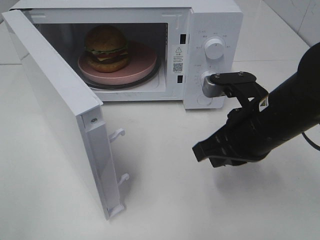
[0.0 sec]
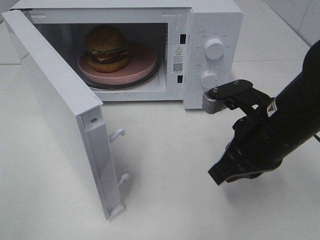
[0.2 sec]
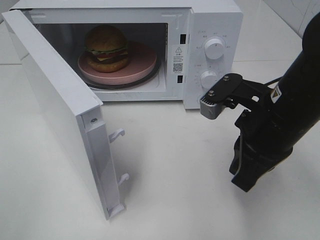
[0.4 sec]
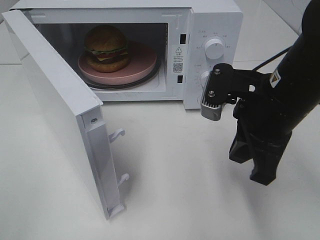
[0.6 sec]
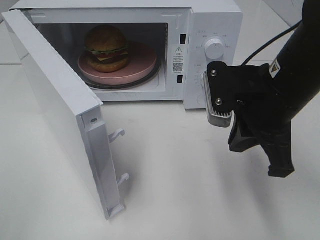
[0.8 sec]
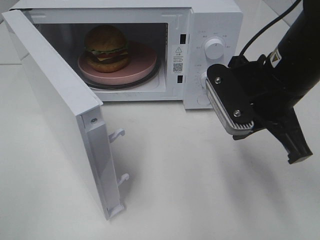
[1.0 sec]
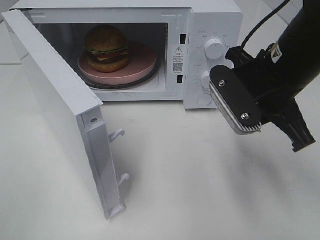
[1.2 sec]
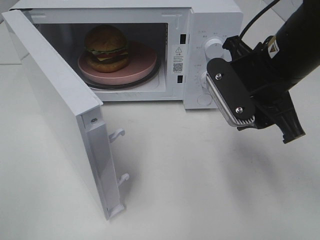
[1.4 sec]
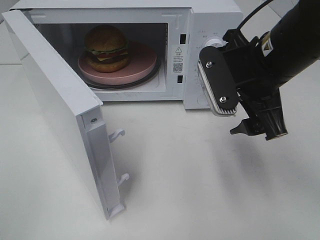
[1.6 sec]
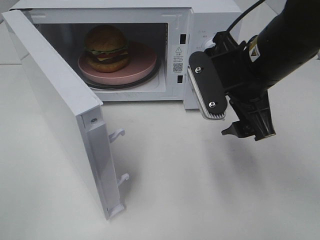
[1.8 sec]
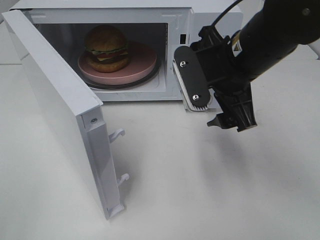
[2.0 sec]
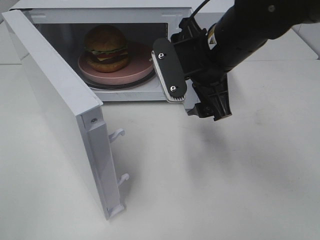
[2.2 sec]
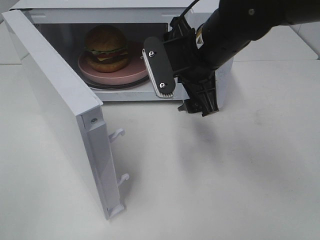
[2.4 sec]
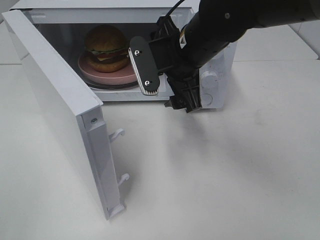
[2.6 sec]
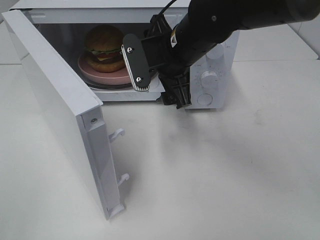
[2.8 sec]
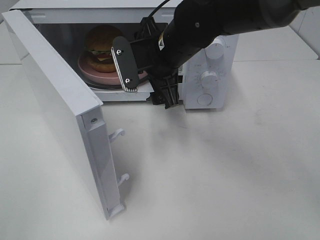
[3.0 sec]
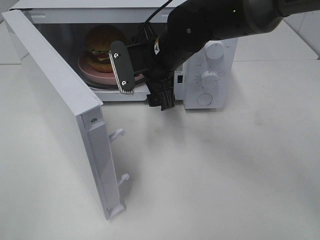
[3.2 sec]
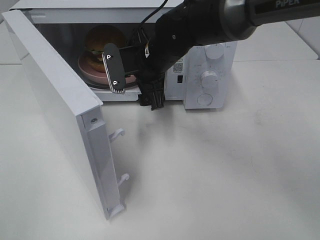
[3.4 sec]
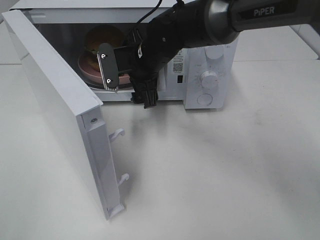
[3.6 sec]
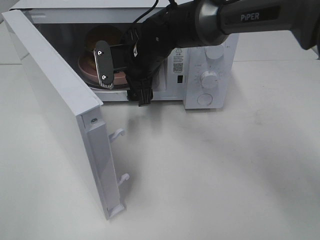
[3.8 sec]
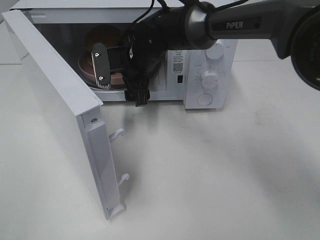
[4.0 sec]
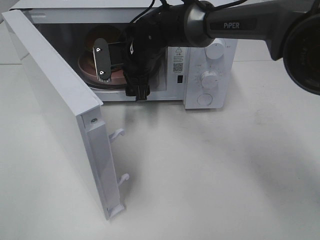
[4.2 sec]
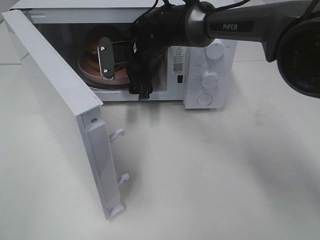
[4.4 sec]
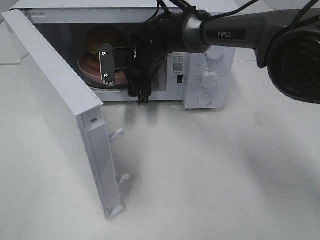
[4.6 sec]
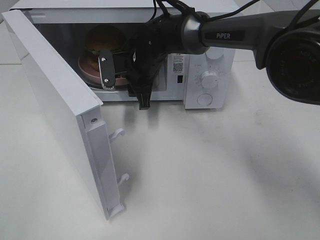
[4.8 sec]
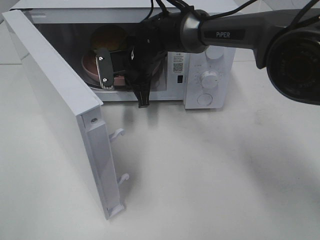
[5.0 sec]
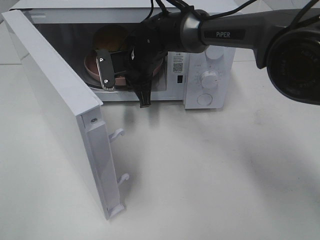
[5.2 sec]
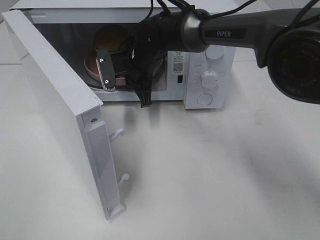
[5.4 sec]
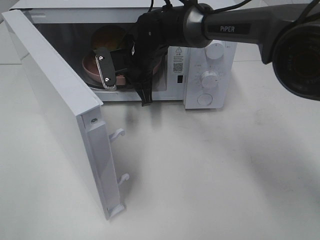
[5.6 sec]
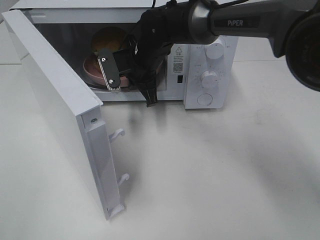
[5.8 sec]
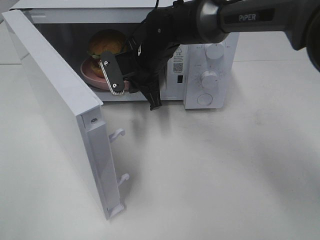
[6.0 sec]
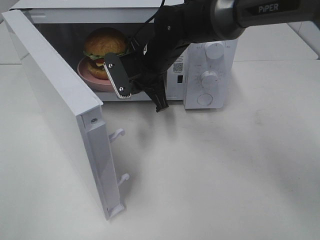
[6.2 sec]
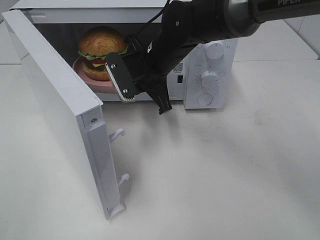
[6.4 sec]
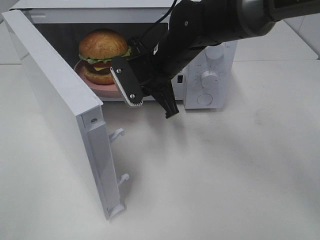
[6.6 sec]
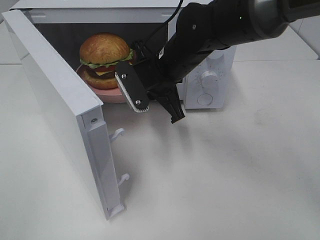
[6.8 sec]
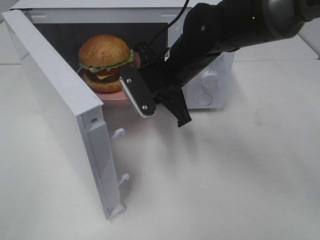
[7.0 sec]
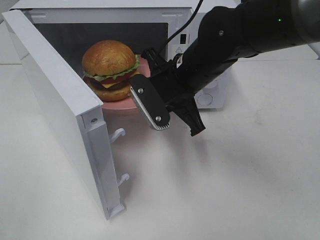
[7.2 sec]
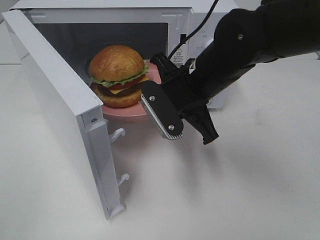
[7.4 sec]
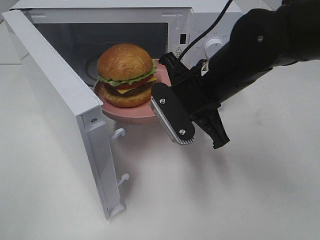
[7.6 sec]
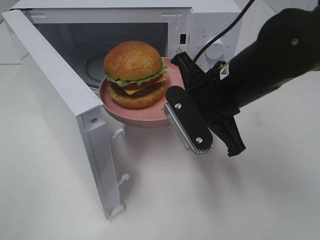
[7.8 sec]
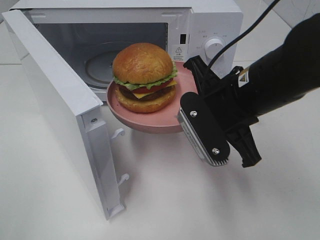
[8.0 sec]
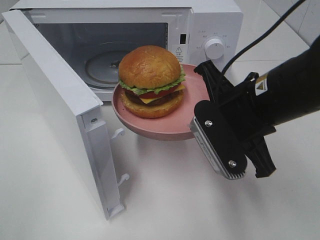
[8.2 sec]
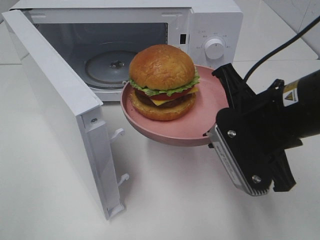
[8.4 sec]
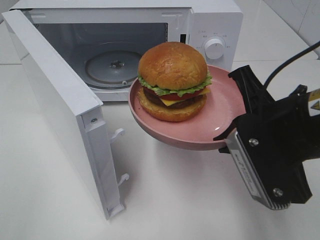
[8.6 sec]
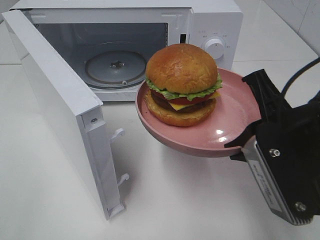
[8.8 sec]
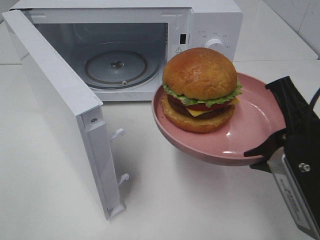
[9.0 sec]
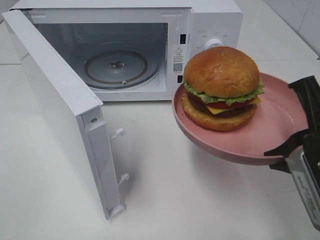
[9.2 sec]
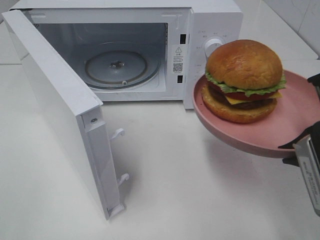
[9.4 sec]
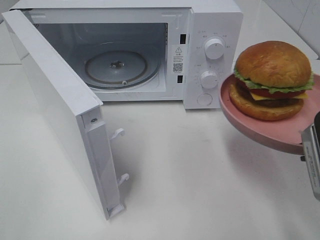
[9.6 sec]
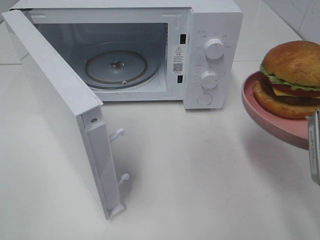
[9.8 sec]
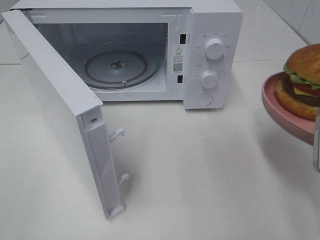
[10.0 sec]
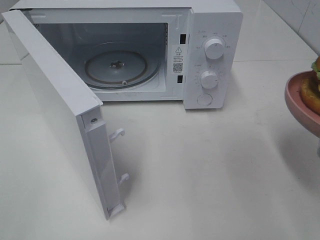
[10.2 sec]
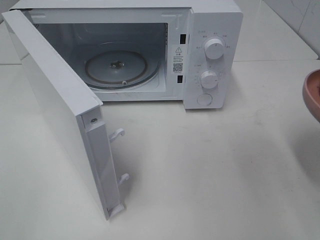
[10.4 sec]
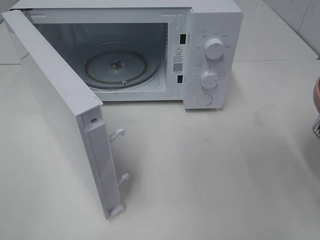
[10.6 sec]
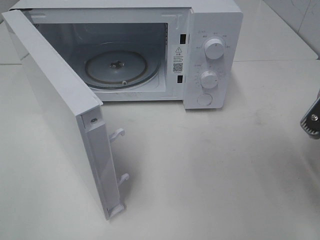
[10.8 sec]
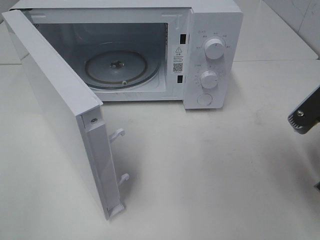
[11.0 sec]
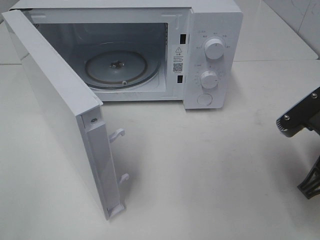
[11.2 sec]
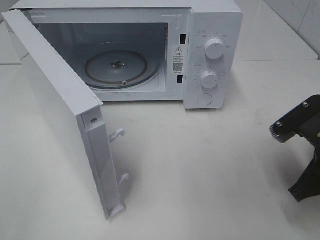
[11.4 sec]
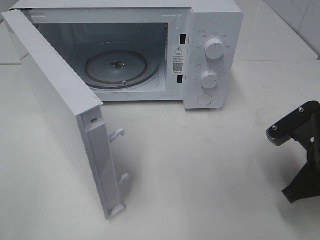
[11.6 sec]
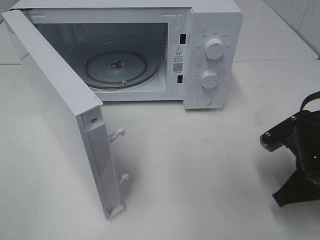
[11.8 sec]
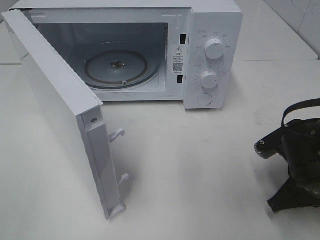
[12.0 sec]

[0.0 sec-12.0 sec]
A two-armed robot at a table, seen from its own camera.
Task of the whole recording: Heat the burger.
Step, 0.0 sec to 5.0 sec: Right hand: grab the plate with the hamburger.
0.0 sec to 1.6 sec: The right gripper shifts approximately 5 cm upward, and opens up.
1.6 sec to 3.0 sec: The right gripper shifts some 15 cm to the left and forward.
3.0 sec to 4.4 sec: The right gripper moves forward and downward, approximately 10 cm.
4.4 sec to 6.0 sec: The right gripper closes its fingers.
6.0 sec to 7.6 sec: The right gripper moves backward and to the right, some 15 cm.
7.6 sec to 9.0 sec: The right gripper moves backward and to the right, some 15 cm.
9.0 sec to 10.4 sec: The right gripper shifts roughly 5 cm to the right.
10.4 sec to 12.0 sec: The right gripper goes roughly 15 cm downward and forward.

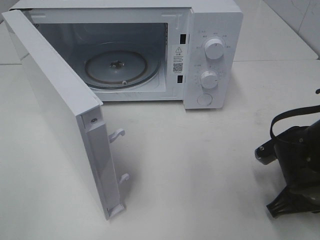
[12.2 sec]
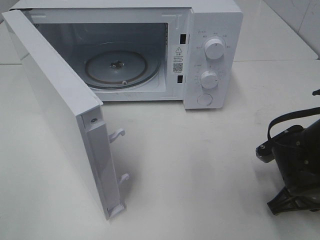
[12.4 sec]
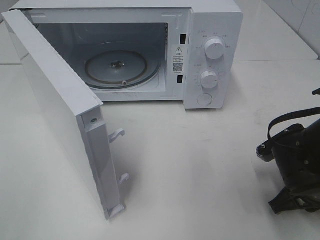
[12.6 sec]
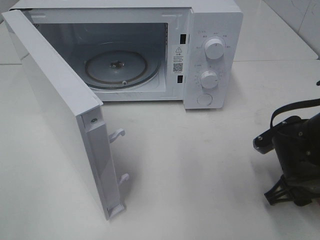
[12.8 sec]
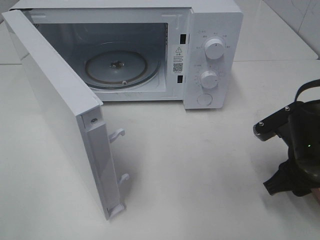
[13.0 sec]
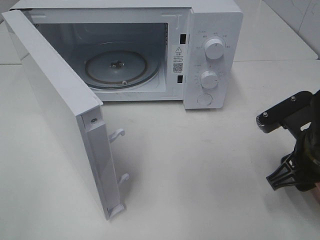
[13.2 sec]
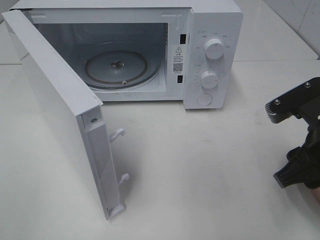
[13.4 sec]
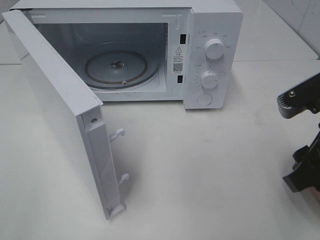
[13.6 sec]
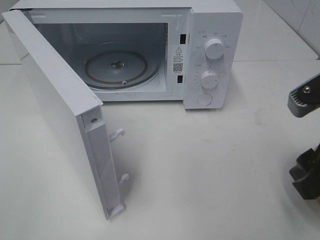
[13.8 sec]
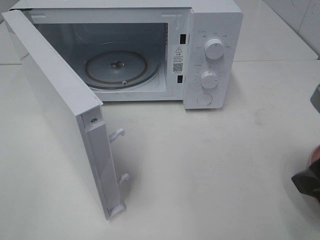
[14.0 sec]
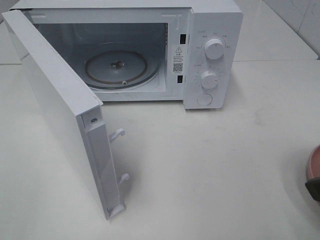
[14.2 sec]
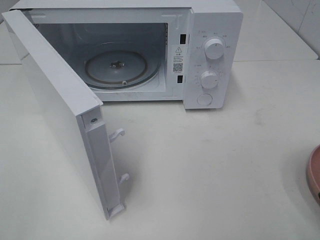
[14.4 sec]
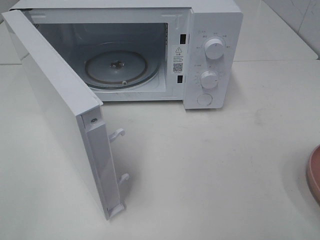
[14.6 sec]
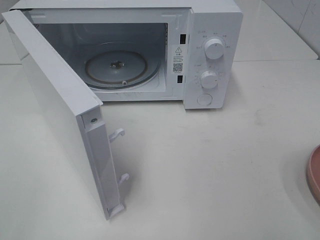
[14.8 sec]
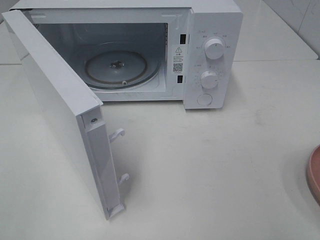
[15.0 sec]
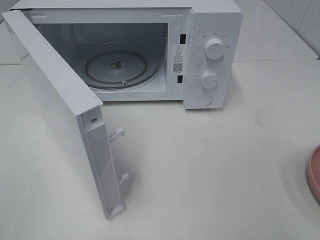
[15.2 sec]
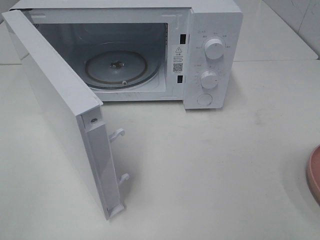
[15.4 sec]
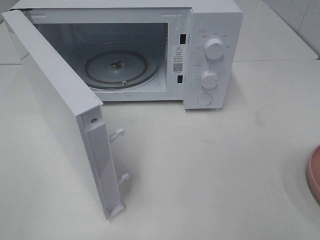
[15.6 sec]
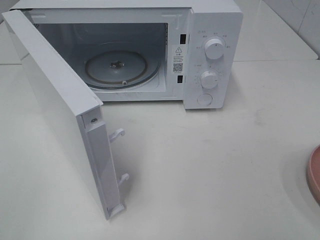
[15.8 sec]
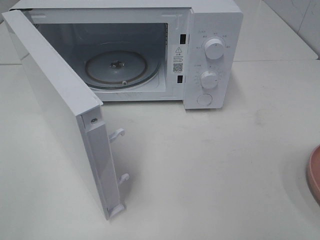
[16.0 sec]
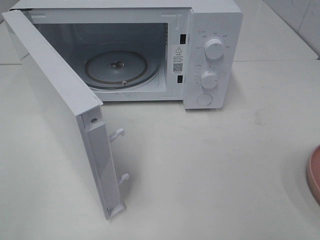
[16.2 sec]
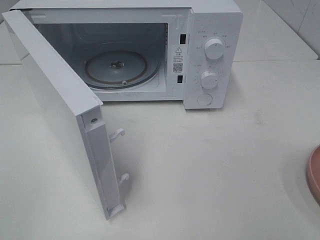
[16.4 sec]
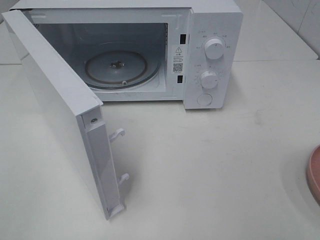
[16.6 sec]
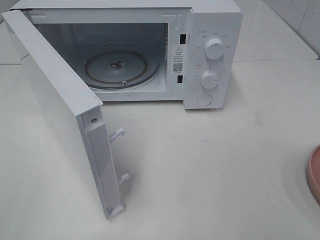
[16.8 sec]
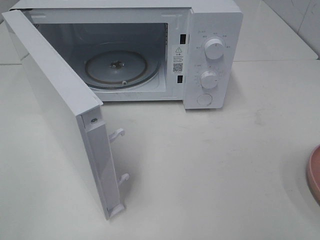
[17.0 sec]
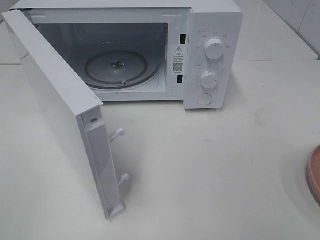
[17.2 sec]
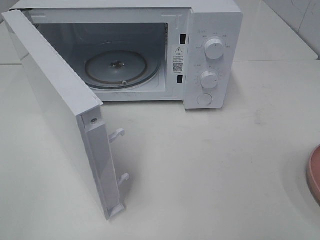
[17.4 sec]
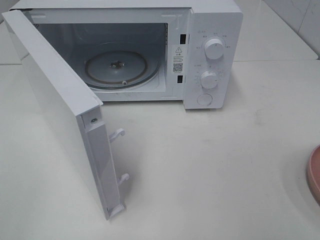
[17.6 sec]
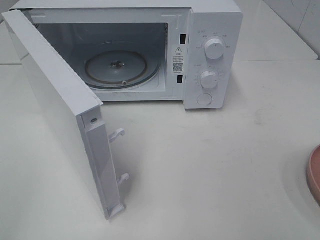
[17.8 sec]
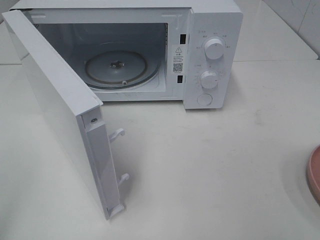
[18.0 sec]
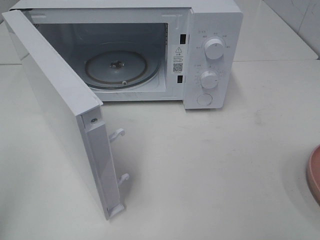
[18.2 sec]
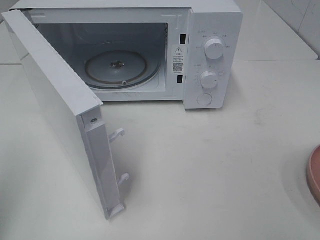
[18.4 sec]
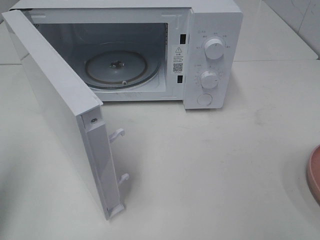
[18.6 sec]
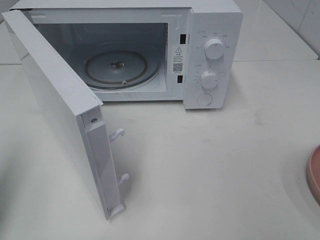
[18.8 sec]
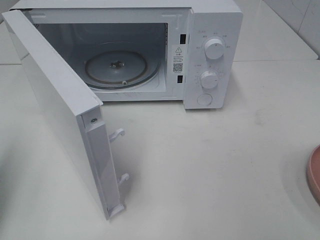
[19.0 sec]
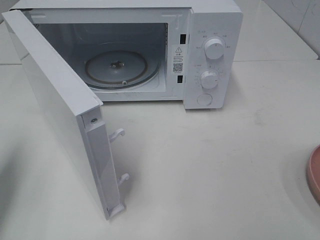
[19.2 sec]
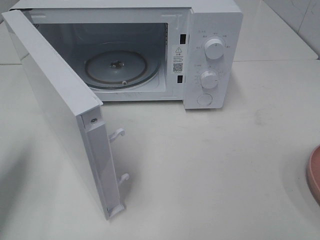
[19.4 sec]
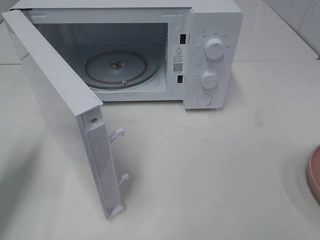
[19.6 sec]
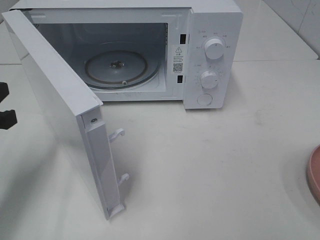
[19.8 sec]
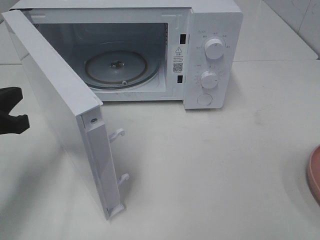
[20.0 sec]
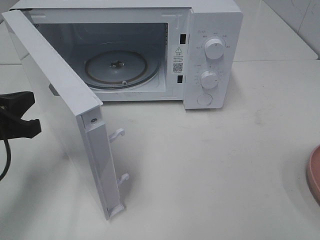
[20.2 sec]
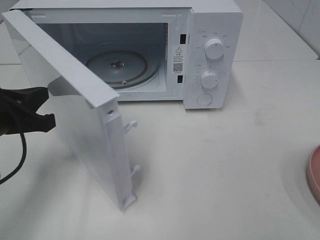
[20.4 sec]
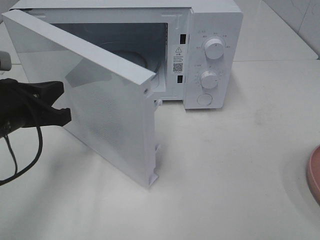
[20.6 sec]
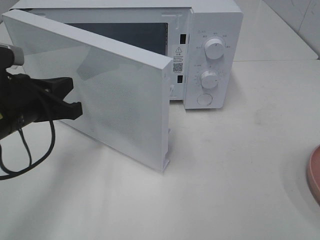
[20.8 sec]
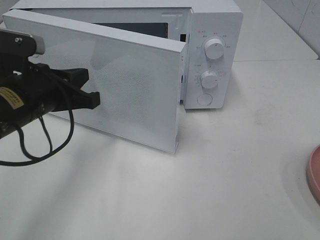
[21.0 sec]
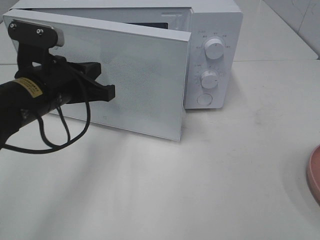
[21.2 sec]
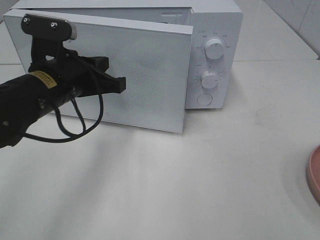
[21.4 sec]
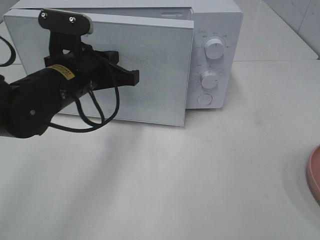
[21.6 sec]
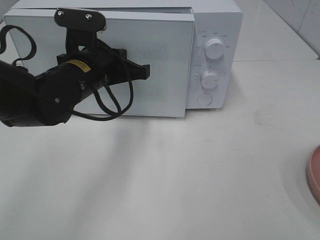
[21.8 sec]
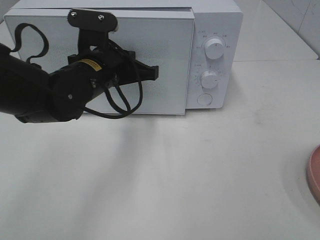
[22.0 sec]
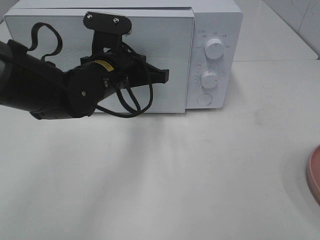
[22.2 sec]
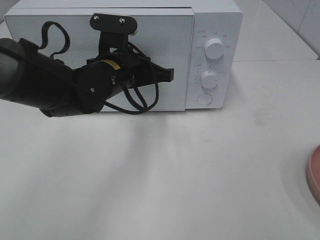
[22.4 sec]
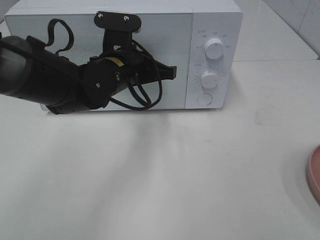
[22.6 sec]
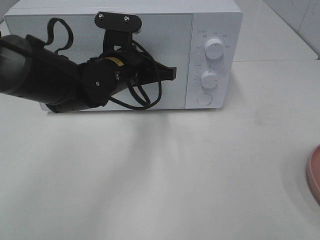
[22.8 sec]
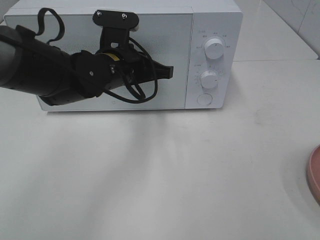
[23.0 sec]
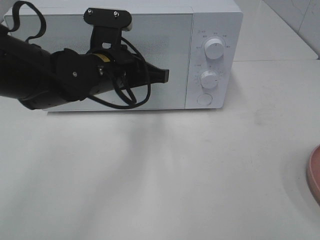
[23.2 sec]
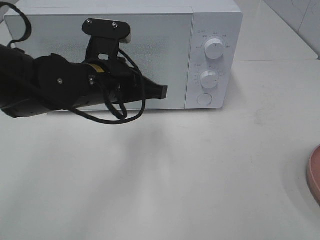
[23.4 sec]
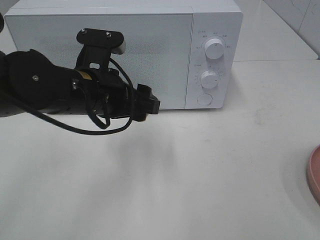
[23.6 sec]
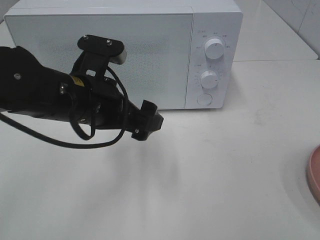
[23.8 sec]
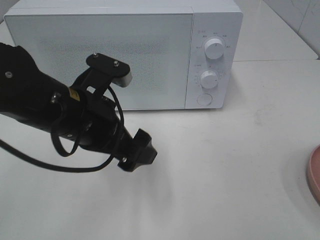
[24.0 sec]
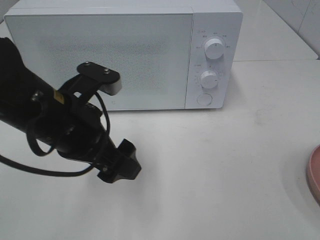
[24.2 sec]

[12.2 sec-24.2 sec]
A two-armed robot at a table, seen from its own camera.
Task of the whole recording: Heat the burger.
Step, 13.2 sec to 23.6 sec: Left hand: close the microwave door.
12.2 sec to 13.8 sec: The right gripper travels upward by roughly 15 cm, and opens its fingers.
13.8 sec to 15.2 sec: The right gripper goes about 15 cm backward, to the right and upward.
18.2 sec to 19.8 sec: The left gripper travels forward and downward by roughly 20 cm.
19.8 sec to 21.2 sec: The left gripper heads to the right and forward, covering about 15 cm.
21.2 sec to 22.6 sec: The left gripper travels to the right and forward by some 10 cm.
22.6 sec to 24.2 sec: The left gripper moves backward and to the left, some 15 cm, and opens.
